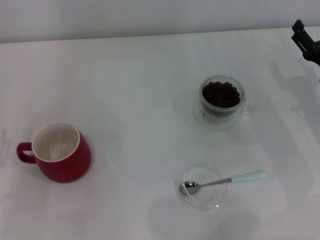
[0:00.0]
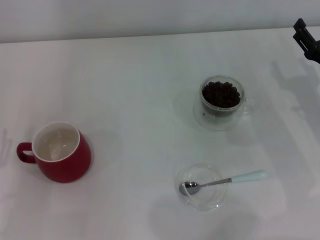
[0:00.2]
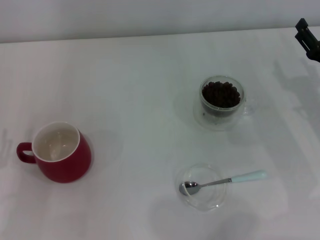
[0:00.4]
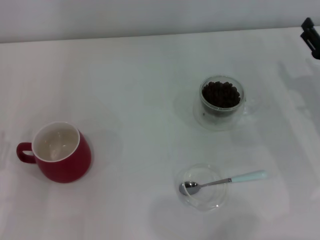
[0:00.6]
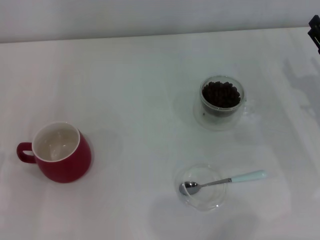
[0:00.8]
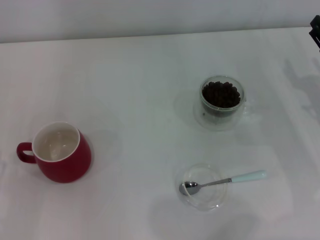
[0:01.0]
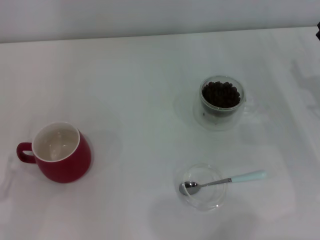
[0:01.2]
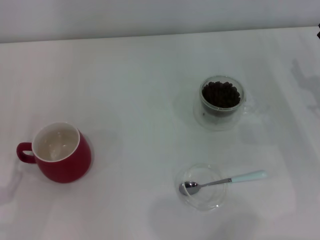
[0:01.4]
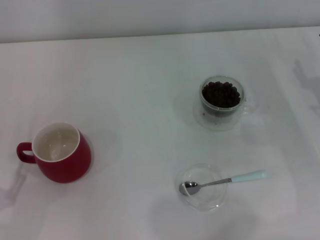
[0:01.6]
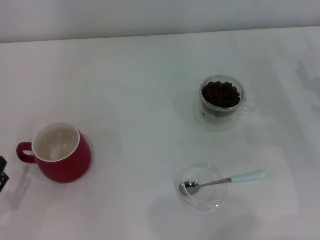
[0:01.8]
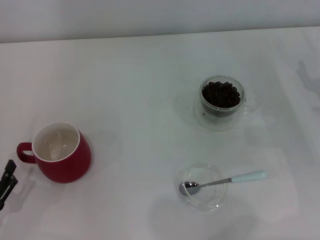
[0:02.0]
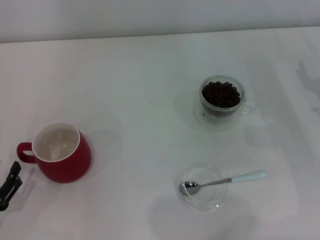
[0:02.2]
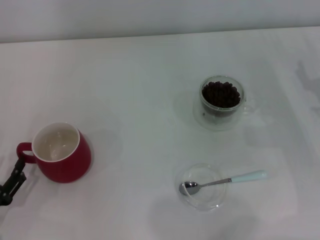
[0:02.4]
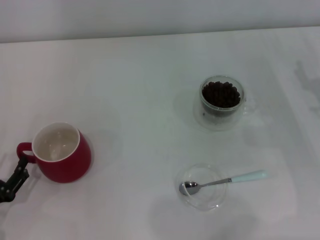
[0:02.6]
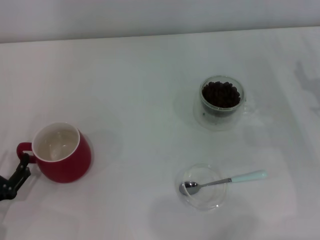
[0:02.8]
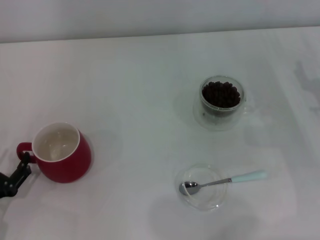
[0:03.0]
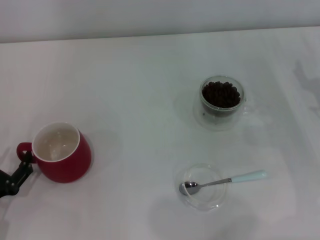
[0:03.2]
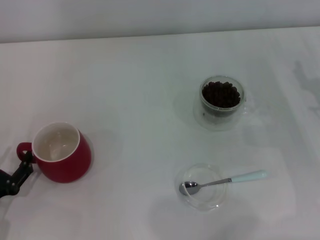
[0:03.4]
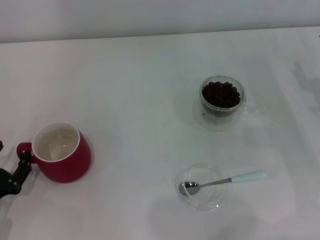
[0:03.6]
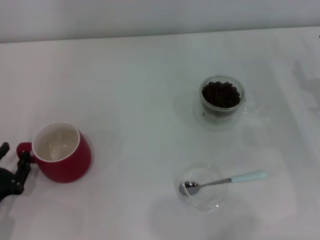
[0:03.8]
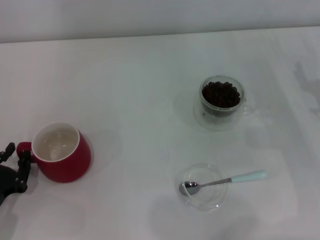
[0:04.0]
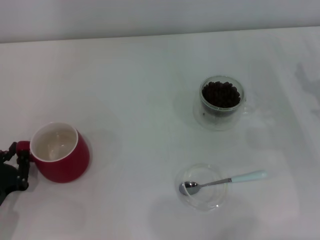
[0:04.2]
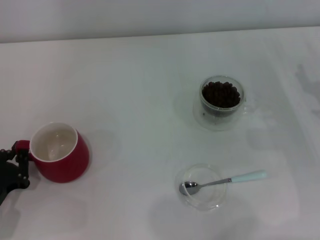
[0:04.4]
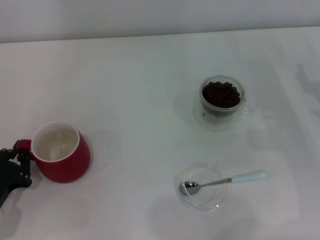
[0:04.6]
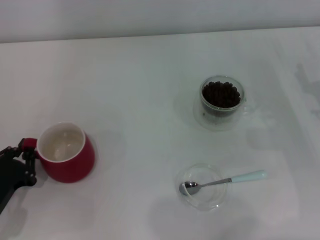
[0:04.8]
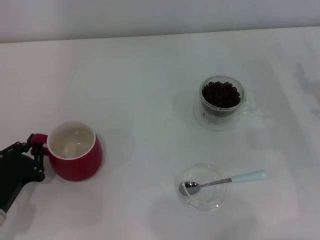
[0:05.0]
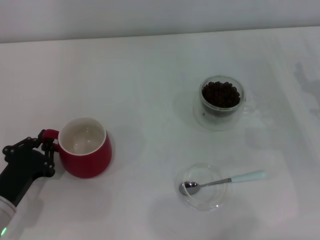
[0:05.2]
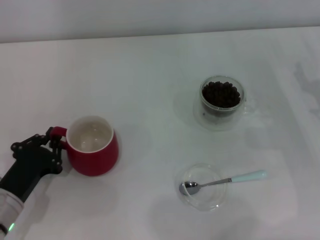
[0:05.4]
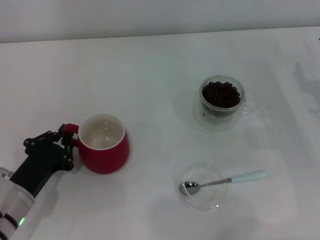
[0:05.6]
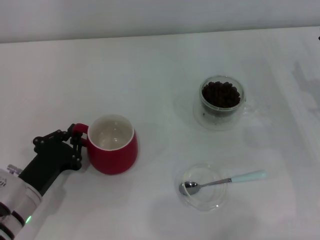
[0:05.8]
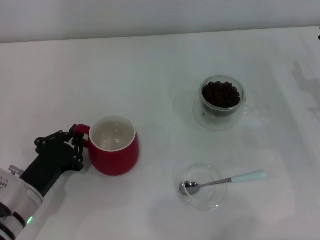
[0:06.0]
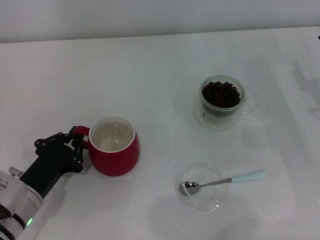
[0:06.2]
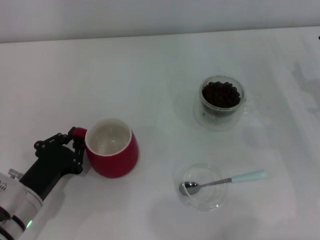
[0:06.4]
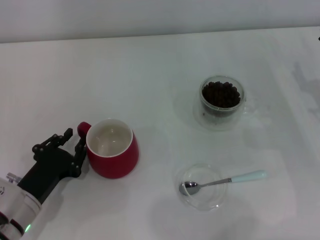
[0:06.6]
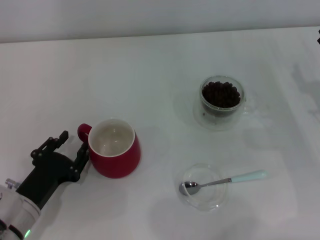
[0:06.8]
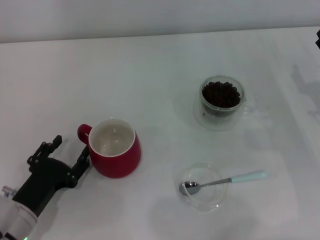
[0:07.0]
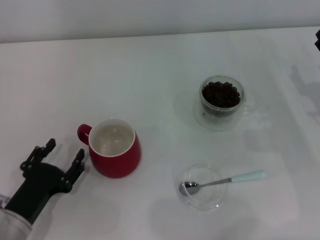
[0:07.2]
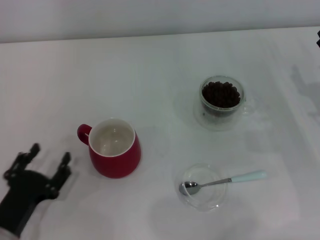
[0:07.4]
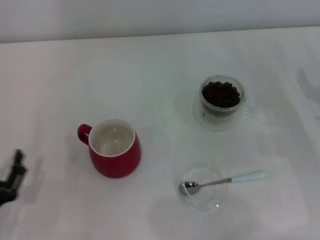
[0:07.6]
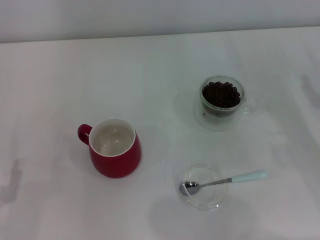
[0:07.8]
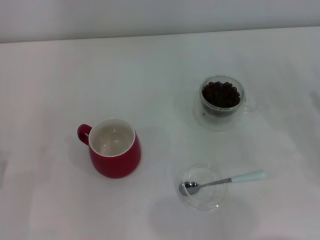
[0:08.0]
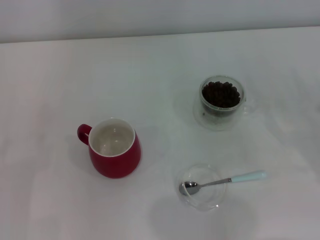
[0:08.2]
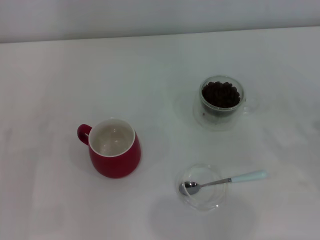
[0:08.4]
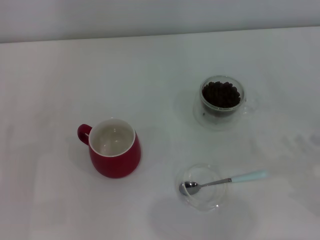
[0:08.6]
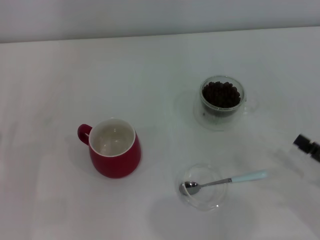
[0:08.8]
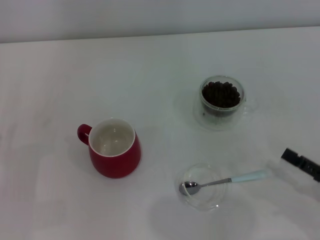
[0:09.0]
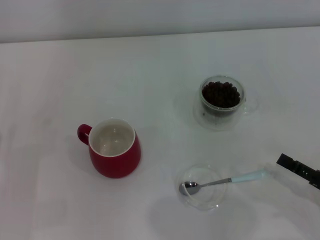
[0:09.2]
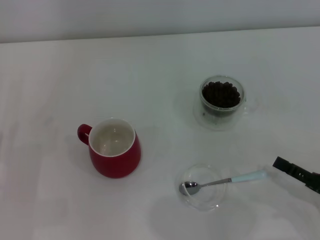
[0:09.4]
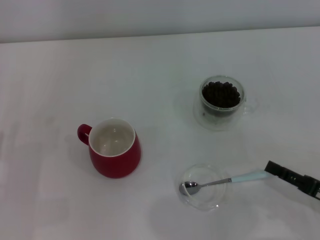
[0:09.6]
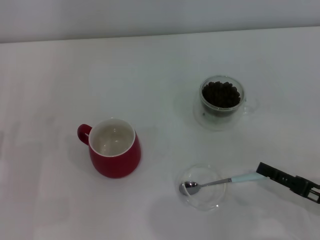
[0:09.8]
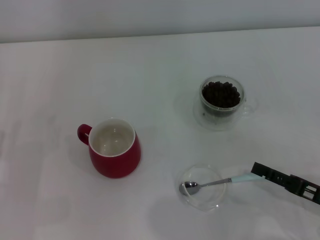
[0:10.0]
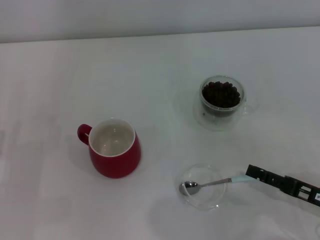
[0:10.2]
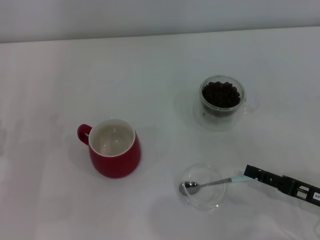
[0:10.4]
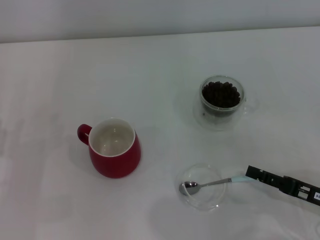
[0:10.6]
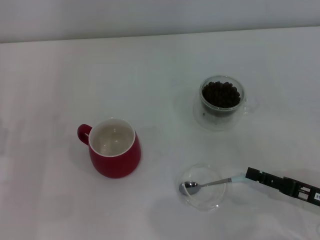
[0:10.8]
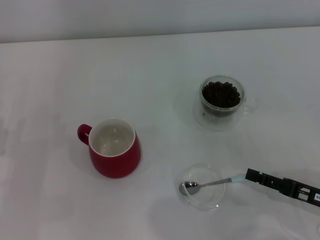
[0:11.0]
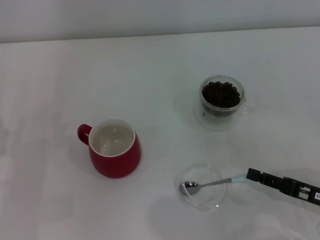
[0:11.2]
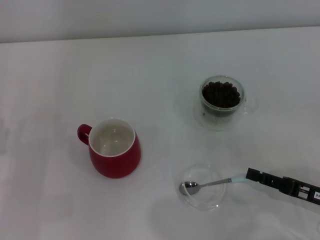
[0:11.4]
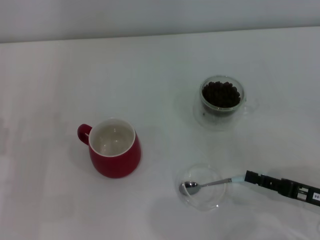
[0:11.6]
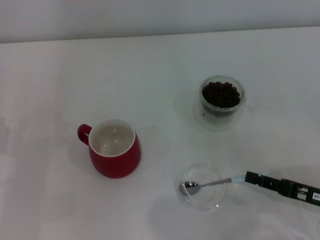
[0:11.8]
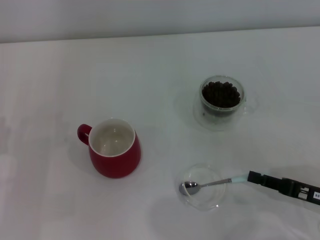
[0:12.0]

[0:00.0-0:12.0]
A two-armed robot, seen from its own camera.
Task of the whole recording: Use a blue spoon to take out the coffee beans from the glass and pour them into the red cup.
Step, 0:00.0 to 0:07.4: Move the cup to the center of view with the left gripper.
0:01.6 to 0:03.0: The grippers stay close to where they were, moving slightly.
0:03.0 to 0:04.4: The left gripper closes up.
0:04.4 to 0:06.0: The left gripper is displaced to the right by approximately 5 cm.
0:06.0 to 0:07.6: The left gripper travels backward and to the left by some 10 cm, and opens.
0:07.6 to 0:09.0: The right gripper travels backward by approximately 15 cm; the left gripper moves forward, about 5 cm.
0:09.0 to 0:10.4: The grippers move only a little.
0:10.4 to 0:12.0: The right gripper closes its fingers.

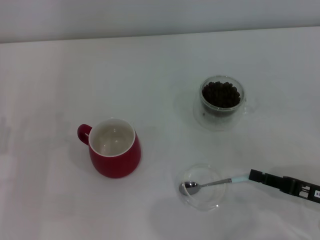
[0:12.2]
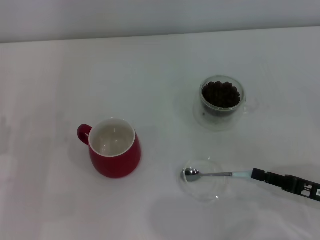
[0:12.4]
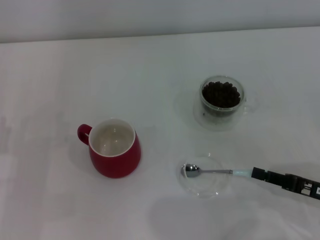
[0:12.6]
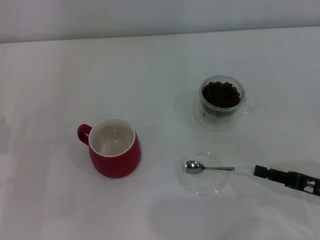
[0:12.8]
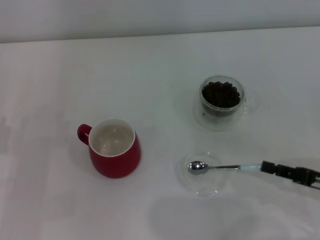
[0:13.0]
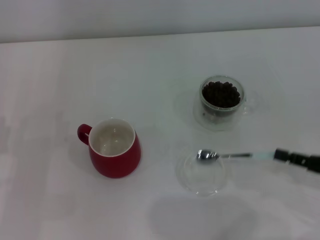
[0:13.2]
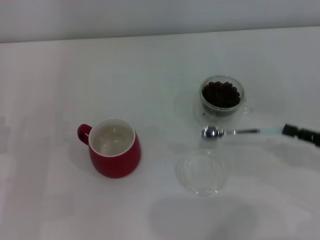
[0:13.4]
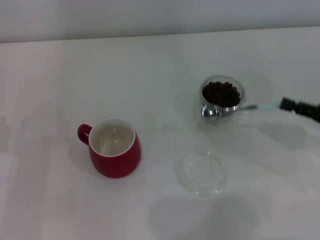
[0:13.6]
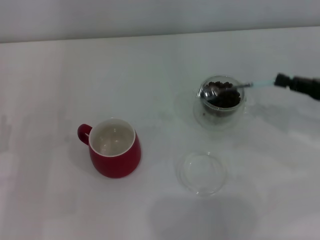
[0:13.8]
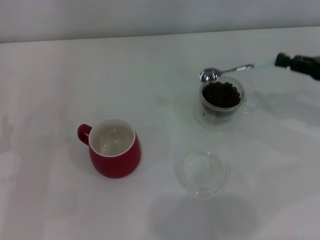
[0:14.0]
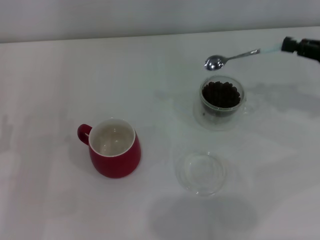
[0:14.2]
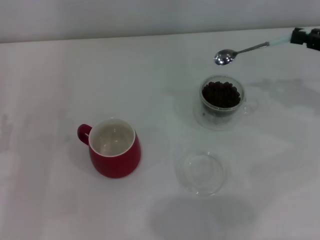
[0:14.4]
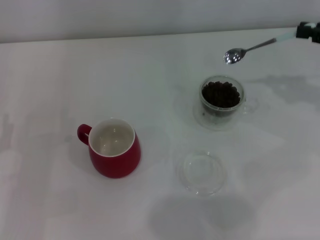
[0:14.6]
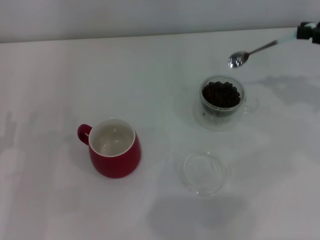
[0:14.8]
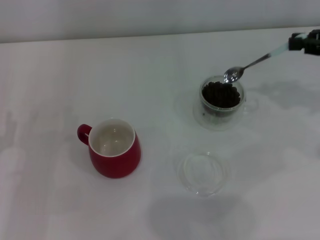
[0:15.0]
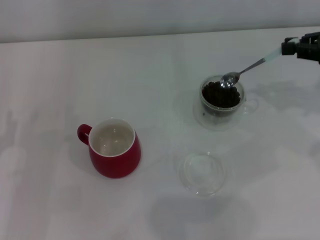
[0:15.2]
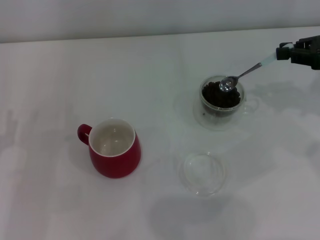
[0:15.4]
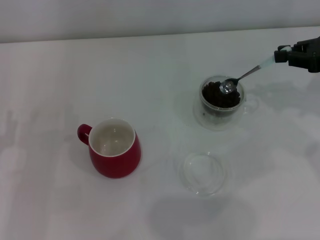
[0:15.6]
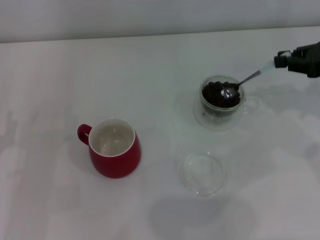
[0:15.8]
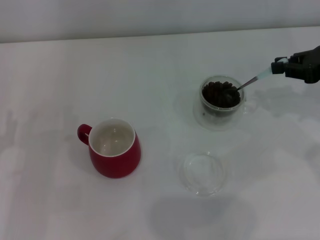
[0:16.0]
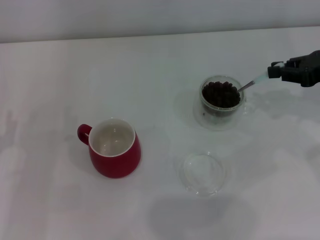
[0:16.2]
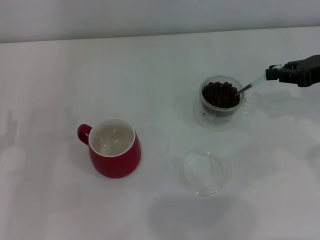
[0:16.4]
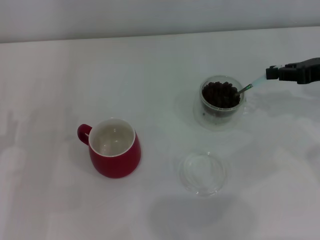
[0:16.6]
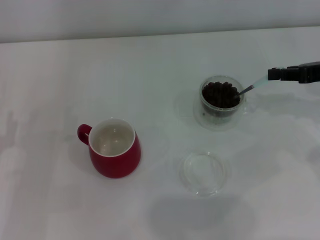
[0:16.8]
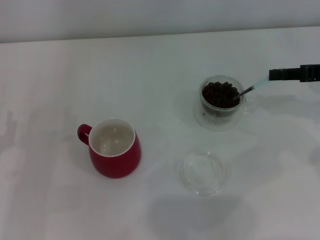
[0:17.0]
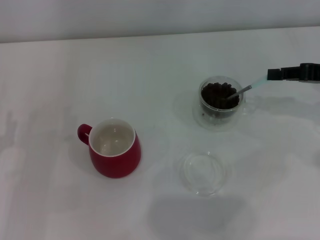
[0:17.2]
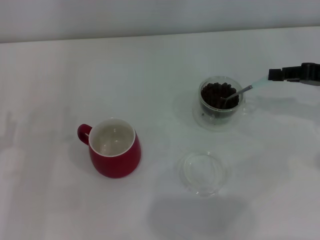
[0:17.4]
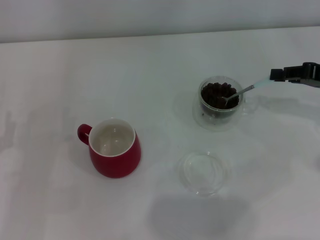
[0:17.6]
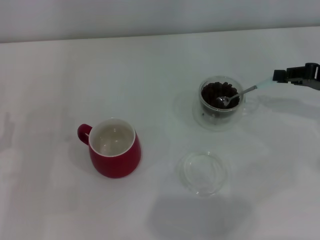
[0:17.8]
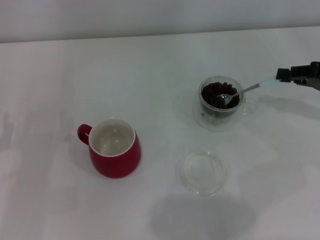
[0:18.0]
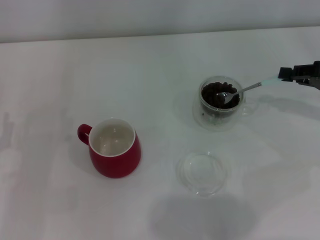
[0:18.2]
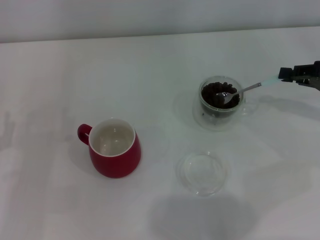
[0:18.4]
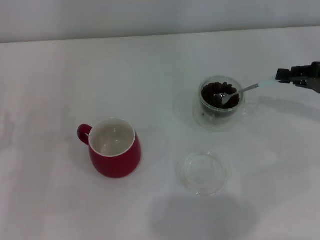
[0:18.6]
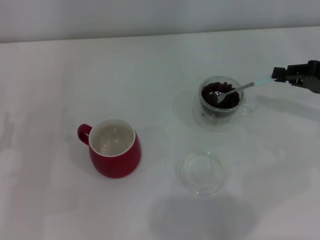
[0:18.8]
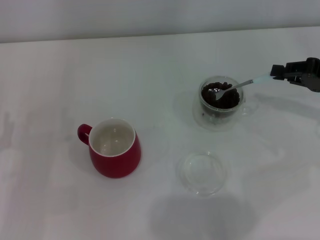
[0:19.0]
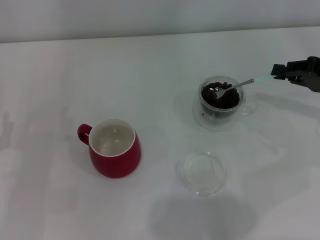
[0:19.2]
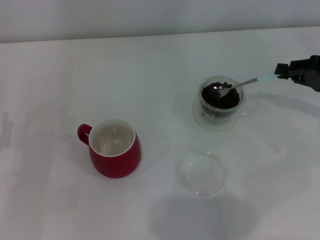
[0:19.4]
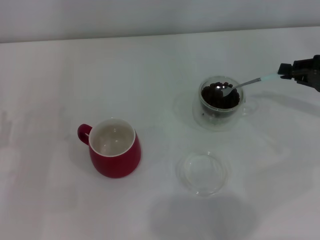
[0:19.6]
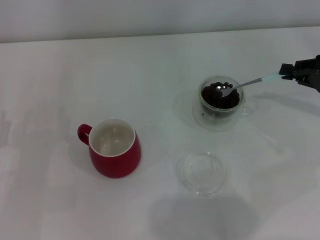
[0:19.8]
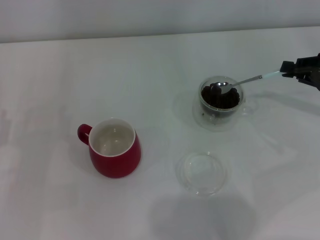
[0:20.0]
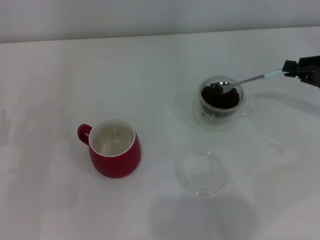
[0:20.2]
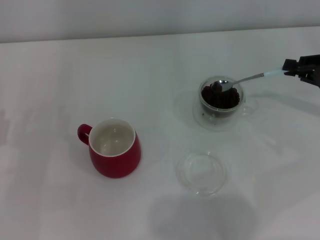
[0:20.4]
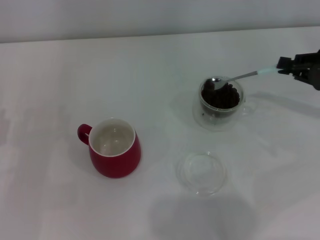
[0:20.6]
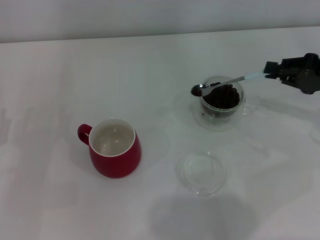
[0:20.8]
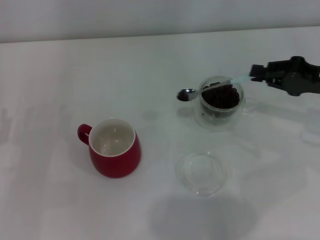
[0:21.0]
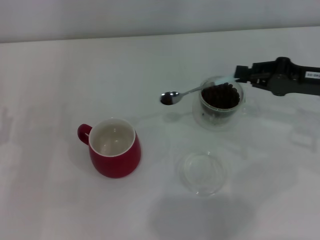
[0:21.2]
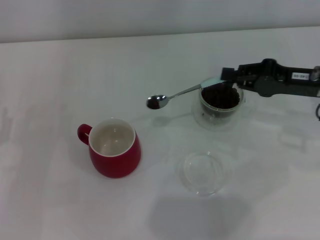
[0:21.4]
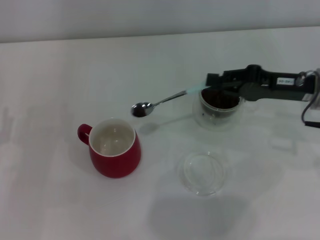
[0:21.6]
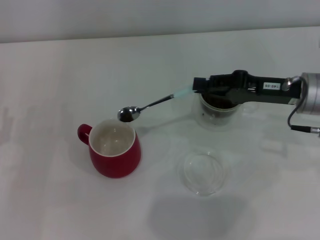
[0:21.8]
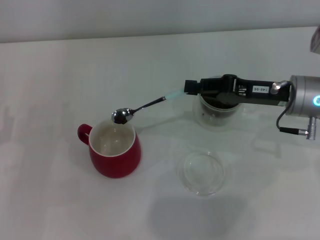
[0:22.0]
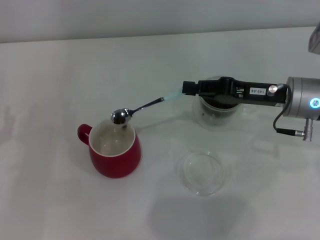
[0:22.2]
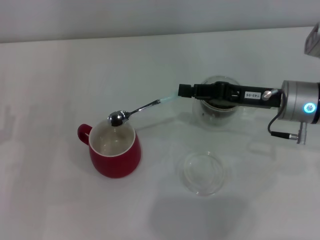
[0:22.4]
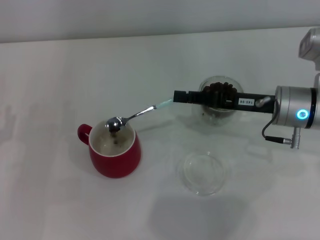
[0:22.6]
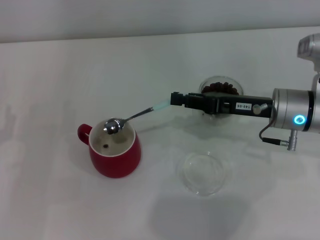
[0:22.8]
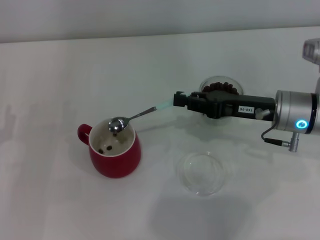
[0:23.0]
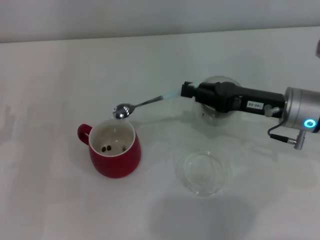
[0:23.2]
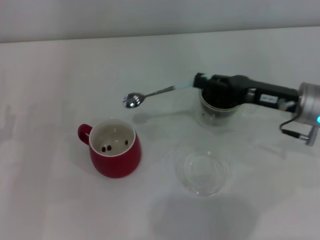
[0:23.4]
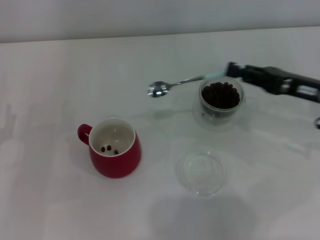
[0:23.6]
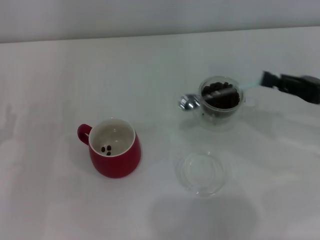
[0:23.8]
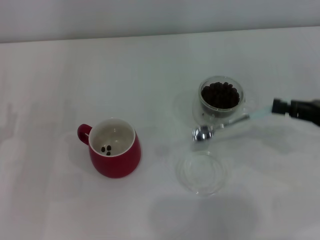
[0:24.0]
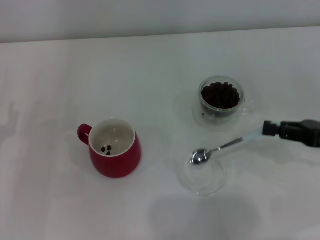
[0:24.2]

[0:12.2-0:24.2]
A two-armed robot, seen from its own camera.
Task of the whole recording: Use a blue spoon to take out the coffee beans from the glass and pour them into the red cup.
Step, 0:13.4 to 0:23.0: Scoop a spoonful of beans into the cup with the right gripper.
0:12.2 to 0:13.8: The right gripper is displaced forward and upward by about 15 cm.
0:13.8 to 0:15.2: The right gripper moves upward, about 10 cm.
0:15.2 to 0:16.6: The grippers move only a little.
0:19.8 to 0:21.2: The right gripper is displaced to the left by about 5 cm.
0:21.2 to 0:22.6: The right gripper heads to the left, covering about 10 cm.
0:22.6 to 0:24.2: The right gripper travels to the right and backward by some 15 cm.
